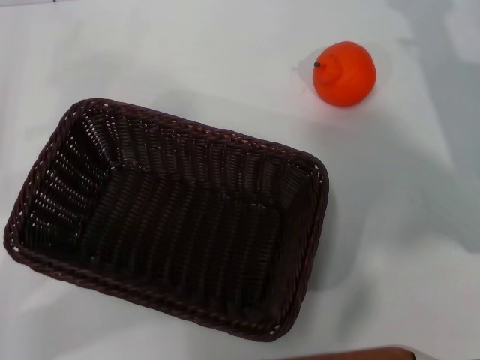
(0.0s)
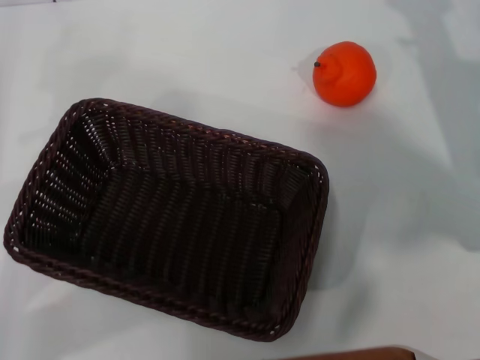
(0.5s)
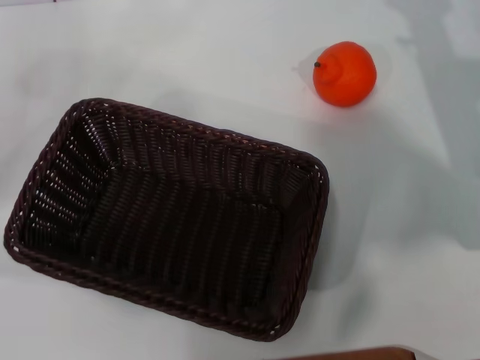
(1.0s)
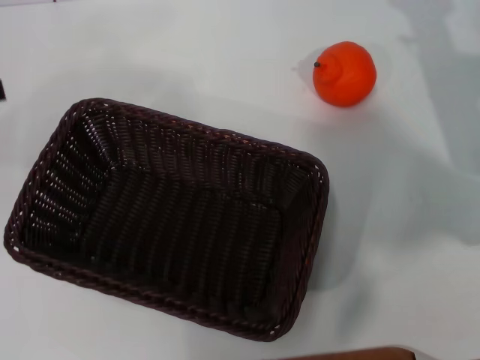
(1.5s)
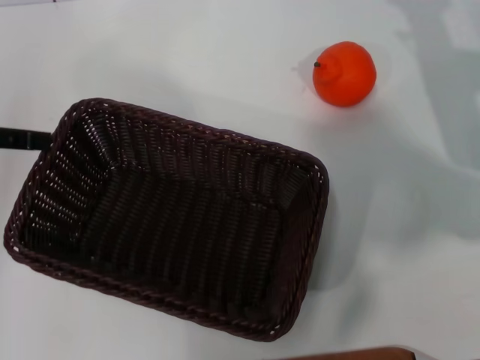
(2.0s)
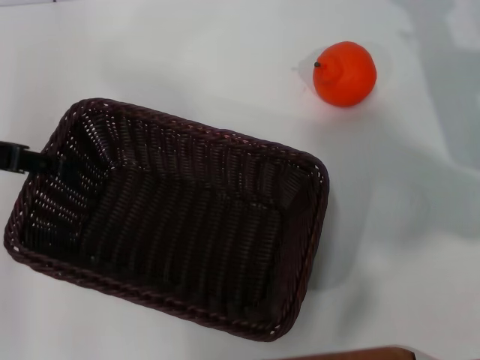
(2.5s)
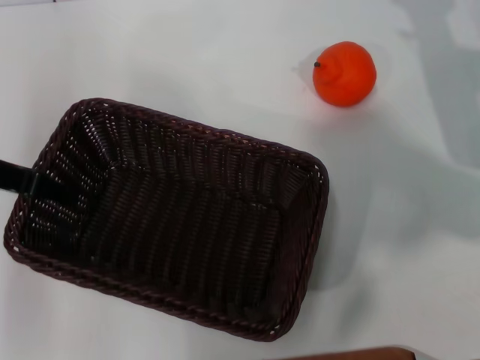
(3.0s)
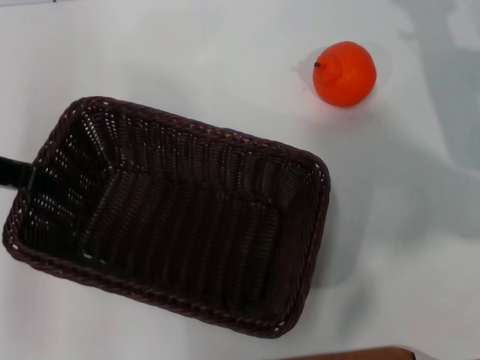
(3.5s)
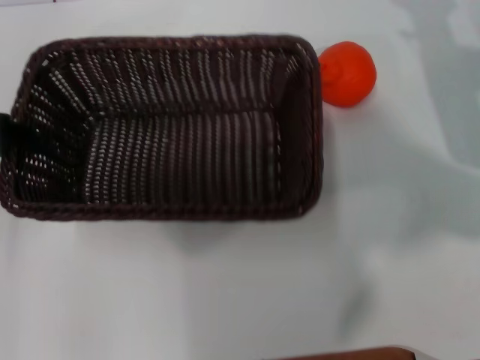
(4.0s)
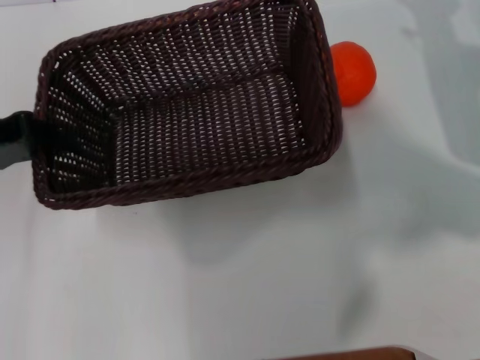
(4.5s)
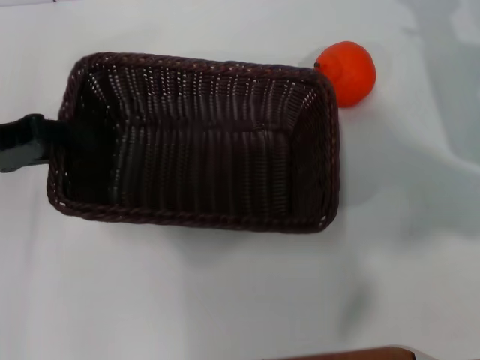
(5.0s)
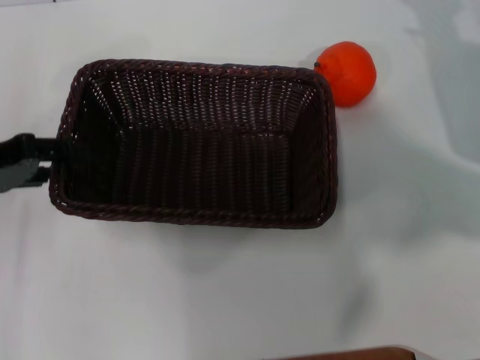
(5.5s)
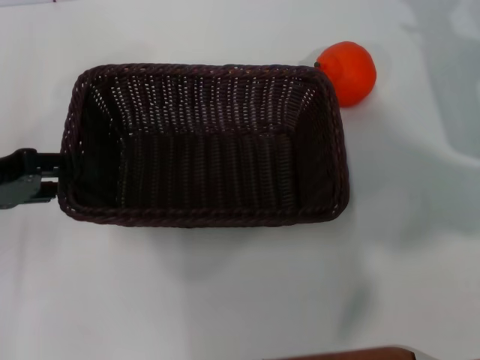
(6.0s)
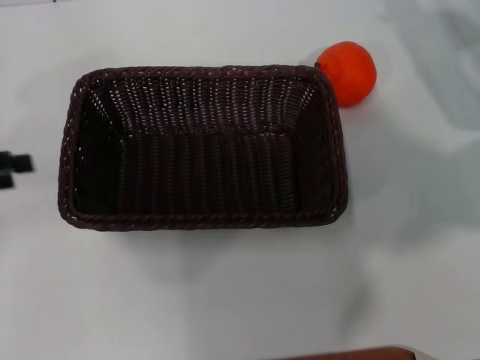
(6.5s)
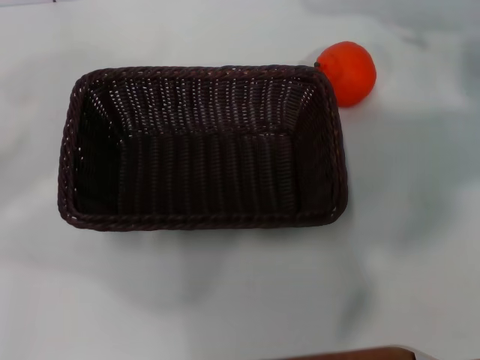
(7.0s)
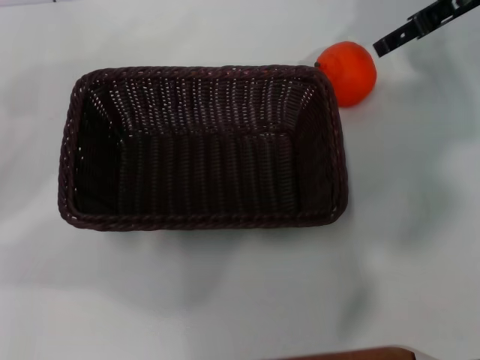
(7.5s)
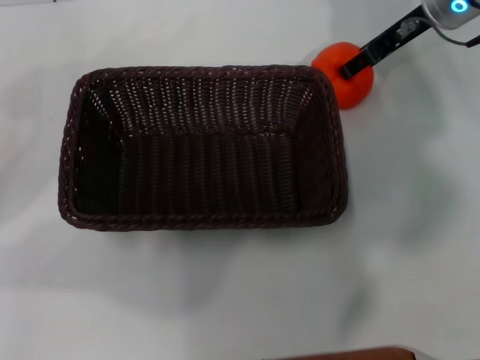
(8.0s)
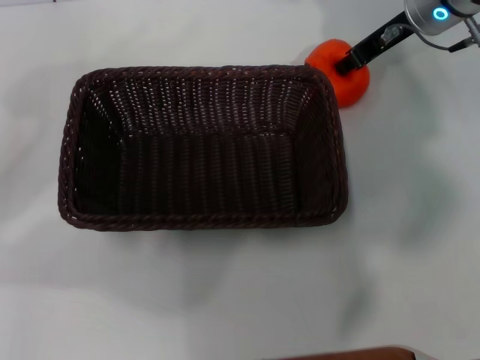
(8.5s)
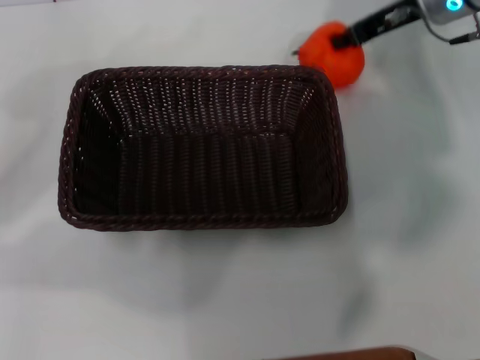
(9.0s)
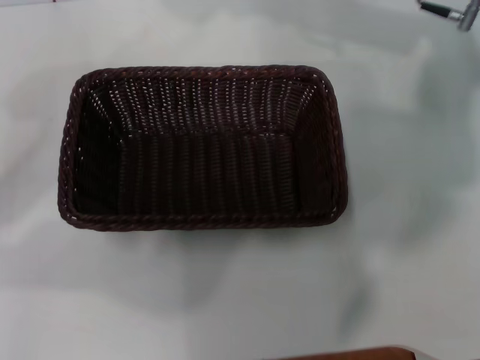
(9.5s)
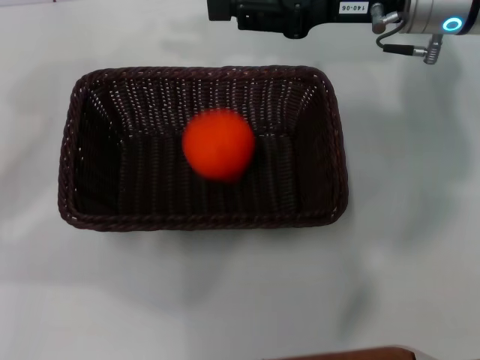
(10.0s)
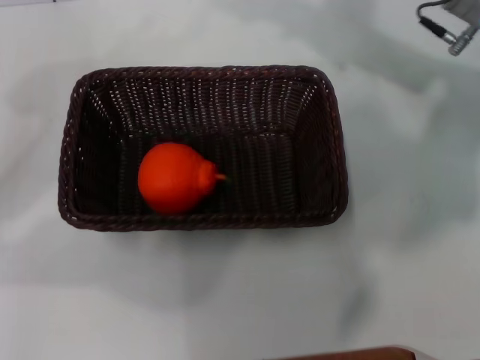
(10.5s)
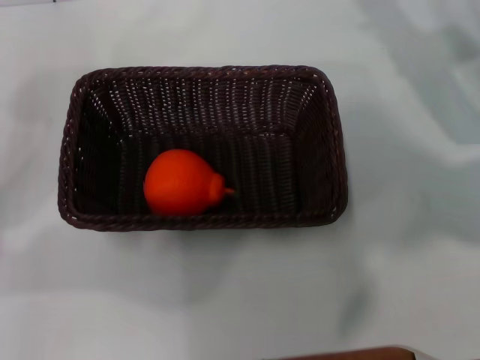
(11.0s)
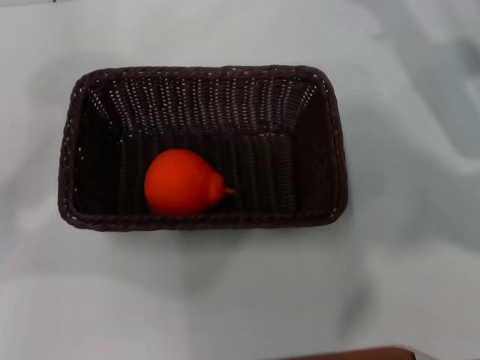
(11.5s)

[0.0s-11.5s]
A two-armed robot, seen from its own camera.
Task of the whole recording: the left gripper pick up the black basket and place it horizontally in the middle of the table, the right gripper pick up the orange and place it into the black basket.
Step, 0.0s to 3.5s: Pick up the dark basket with the left gripper.
Step, 4.0s to 6.0s: Place the dark basket in the center of view with the left gripper.
Step, 6.5s to 9.0s: Pick up the orange with the right gripper.
0.0s to 2.0s: The left gripper heads upward and forward, covering roughly 15 cm.
2.0s to 4.0s: The left gripper closes.
4.0s to 6.0s: The left gripper ends up approximately 5 cm from where it was, and opens up.
6.0s to 7.5s: The right gripper goes approximately 15 cm upward and forward, while the left gripper moves to the left, some 10 cm.
7.5s to 9.5s: The right gripper goes about 5 cm to the left, and closes.
9.5s to 11.5s: The right gripper goes roughly 15 cm downward, to the right and backward, and opens.
